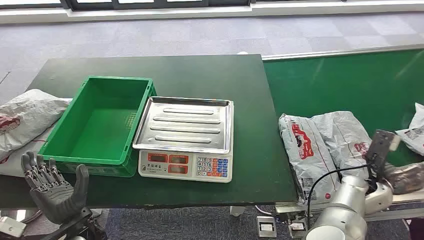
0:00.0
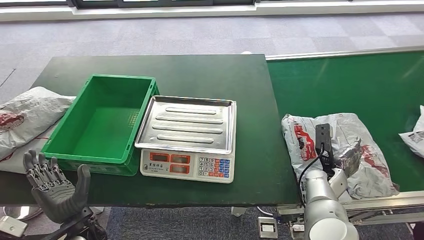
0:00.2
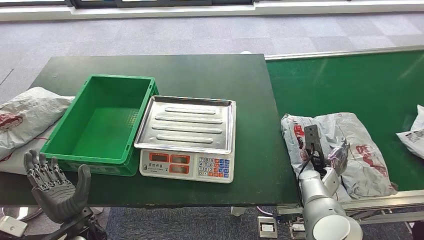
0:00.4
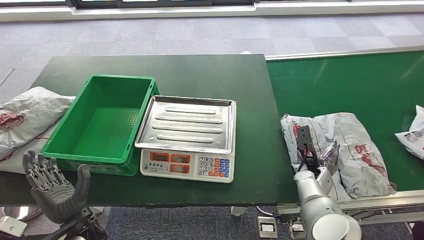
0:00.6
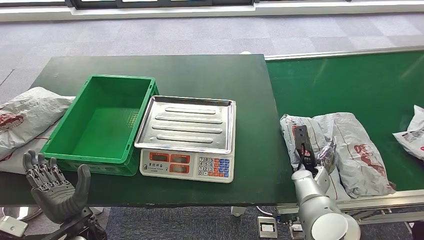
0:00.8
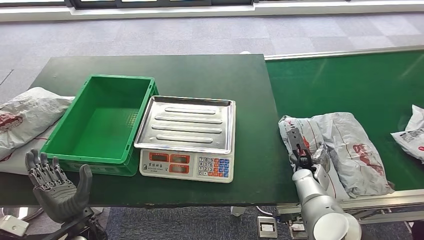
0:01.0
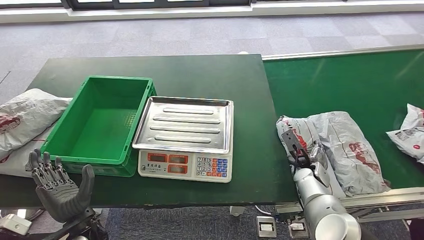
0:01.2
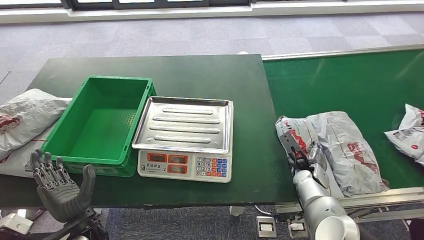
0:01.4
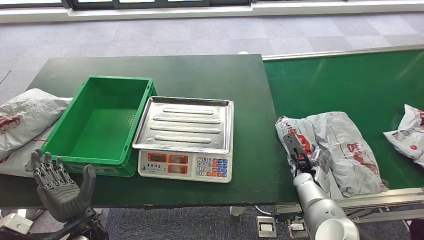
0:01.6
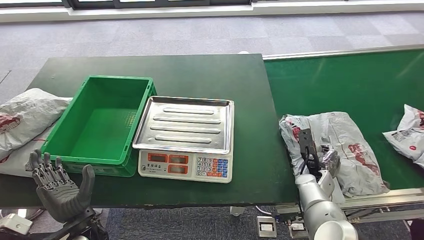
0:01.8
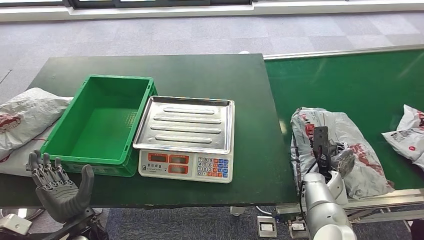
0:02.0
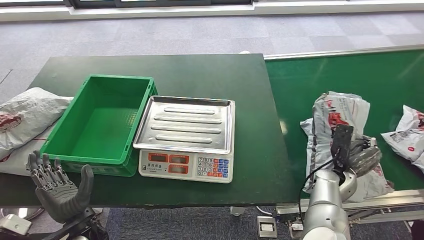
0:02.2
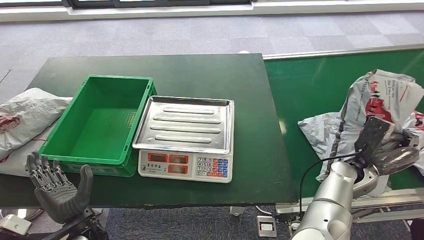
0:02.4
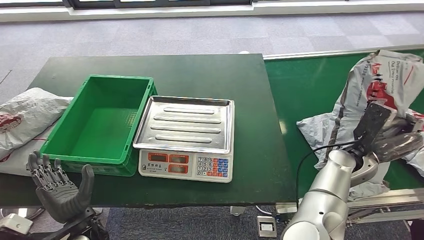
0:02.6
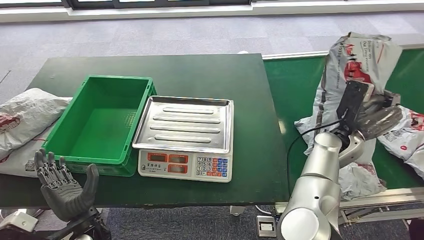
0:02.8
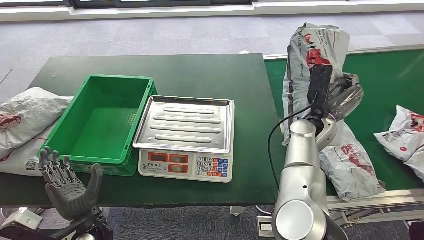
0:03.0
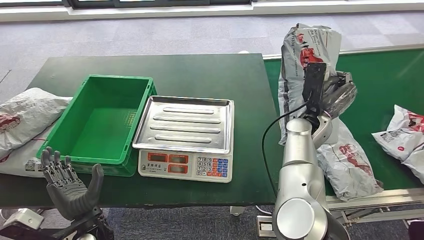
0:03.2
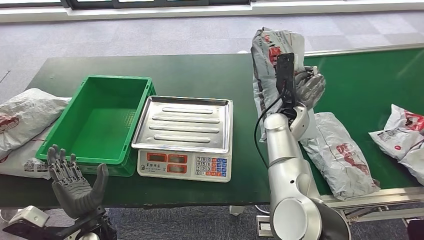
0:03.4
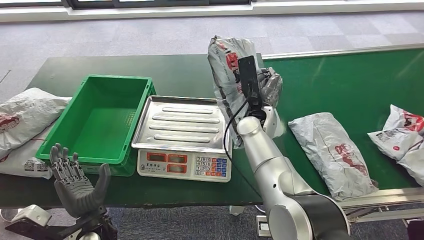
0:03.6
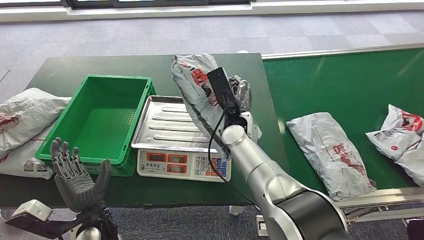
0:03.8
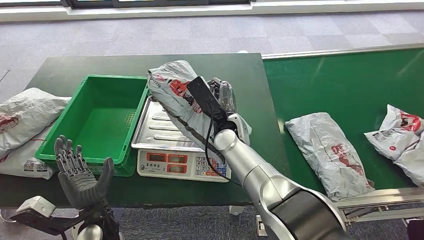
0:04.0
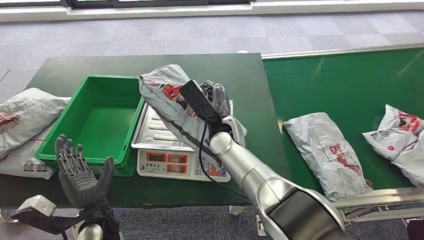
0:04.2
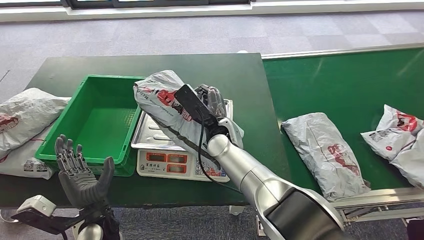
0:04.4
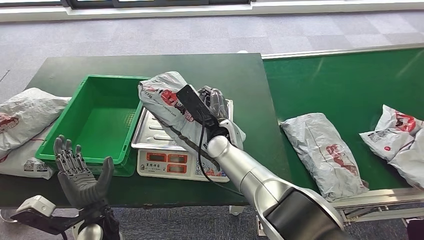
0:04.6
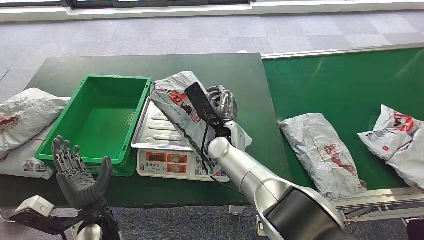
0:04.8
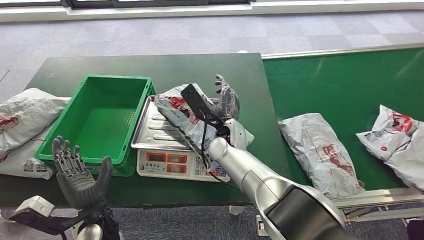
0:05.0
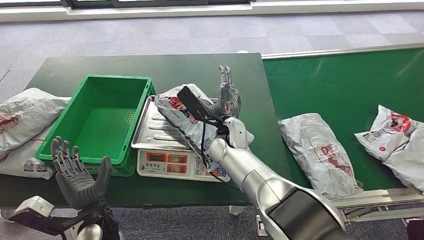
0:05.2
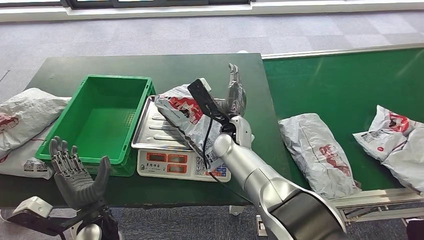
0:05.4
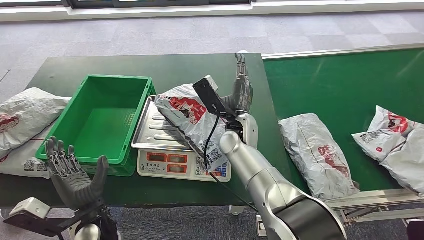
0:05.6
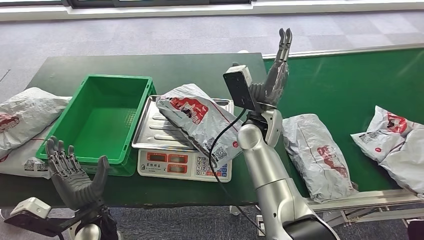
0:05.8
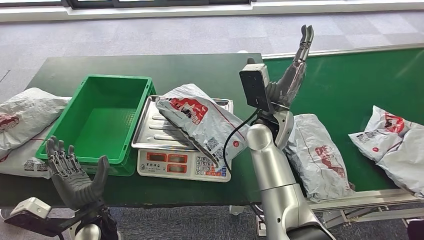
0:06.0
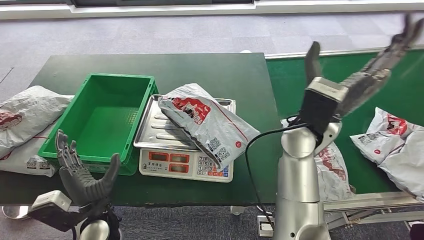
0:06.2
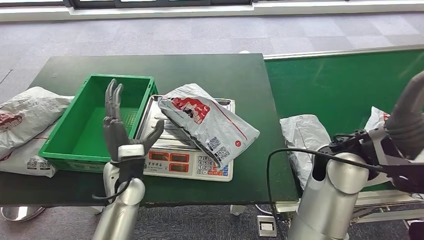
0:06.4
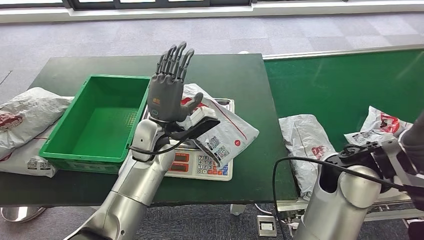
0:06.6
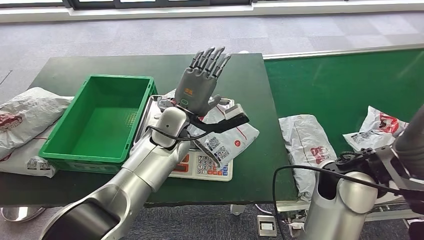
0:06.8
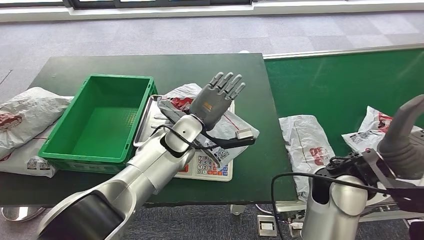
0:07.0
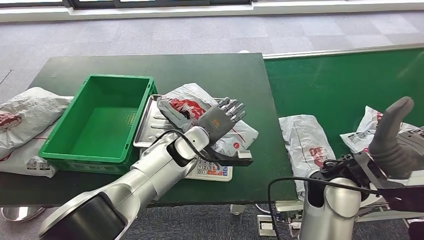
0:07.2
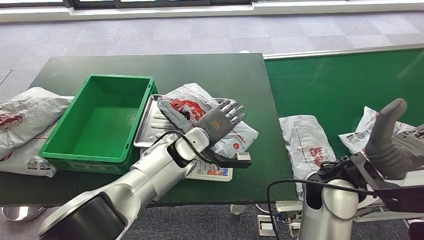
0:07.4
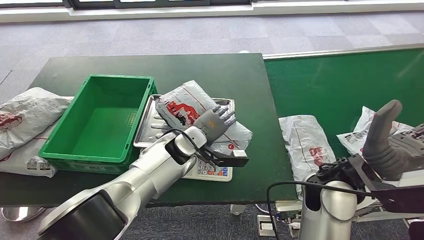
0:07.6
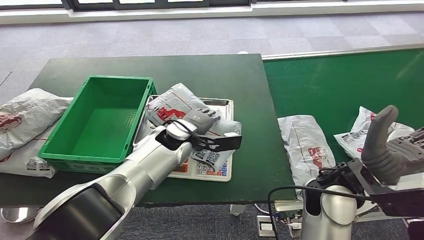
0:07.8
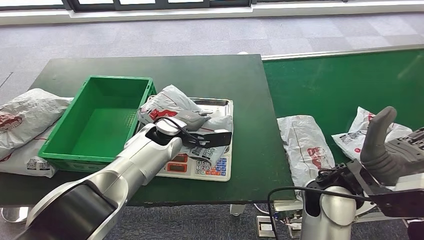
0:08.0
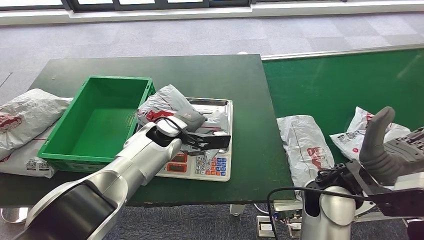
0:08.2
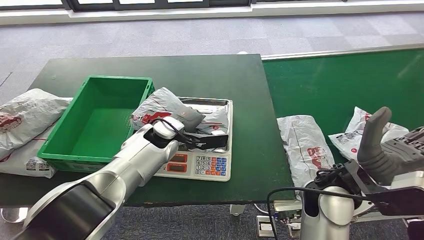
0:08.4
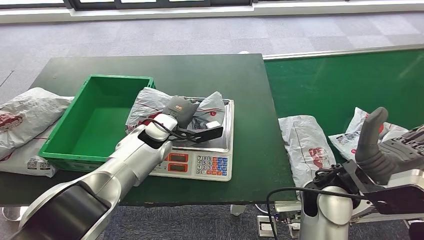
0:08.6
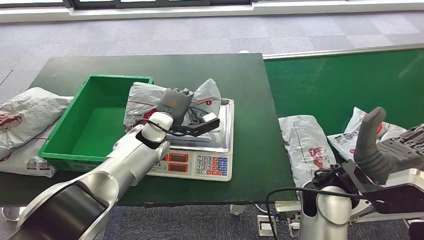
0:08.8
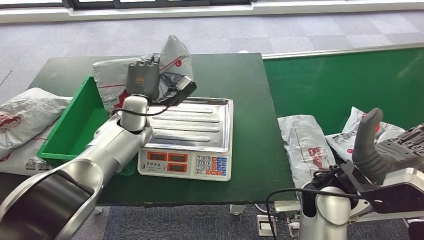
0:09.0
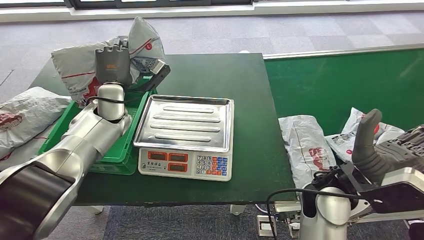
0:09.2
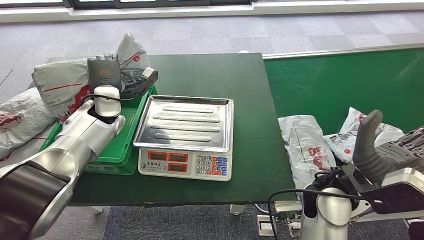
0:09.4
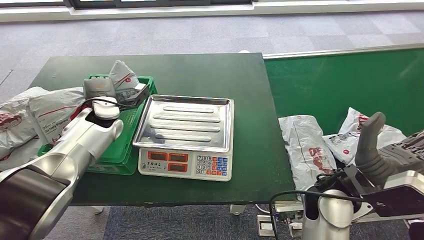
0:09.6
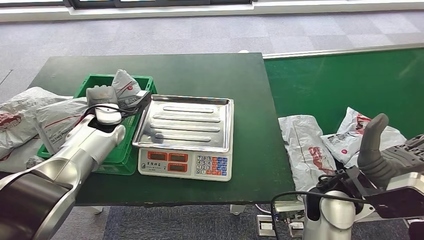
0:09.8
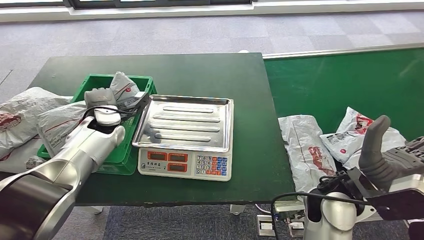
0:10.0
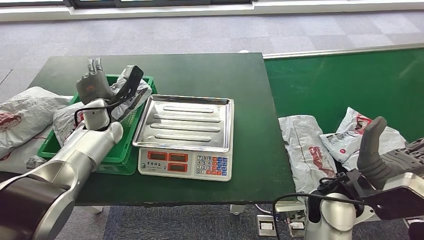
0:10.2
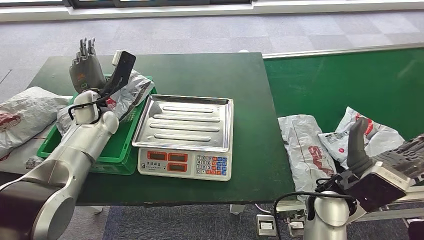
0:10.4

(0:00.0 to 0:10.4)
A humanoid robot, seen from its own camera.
Step, 0:00.0 - 0:02.4: Take the parcel off the conveyor belt.
Step, 0:02.6 - 0:05.4: Place the parcel onto the inbound machine.
Step, 0:07.6 - 0:09.0: Pick up the parcel from the inbound machine.
Step, 0:09.4 - 0:10.4: Put the parcel inside the courier box.

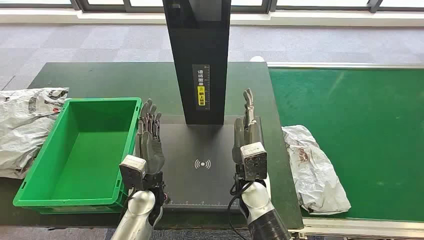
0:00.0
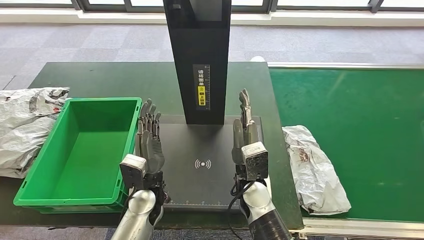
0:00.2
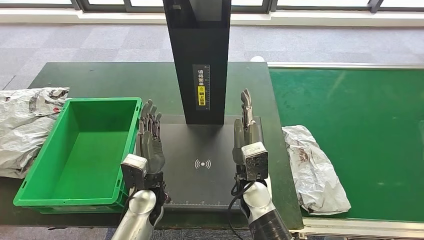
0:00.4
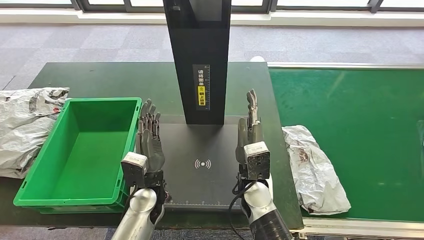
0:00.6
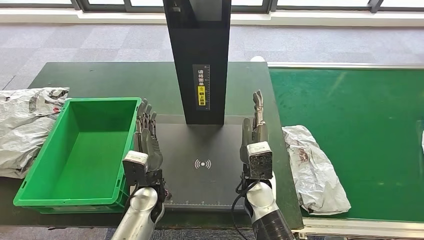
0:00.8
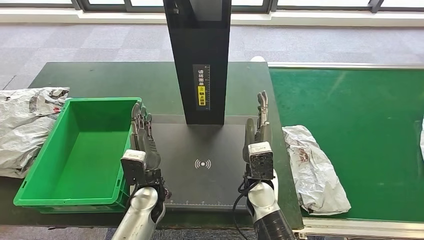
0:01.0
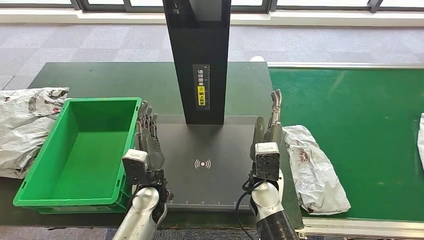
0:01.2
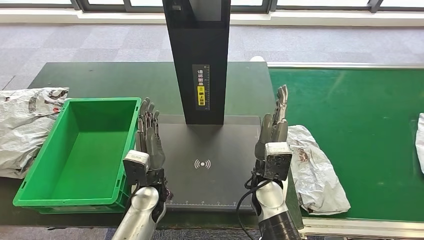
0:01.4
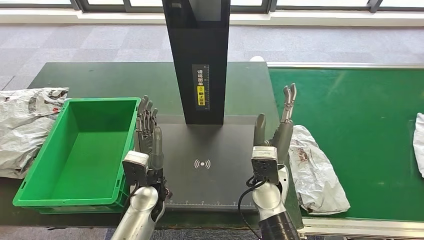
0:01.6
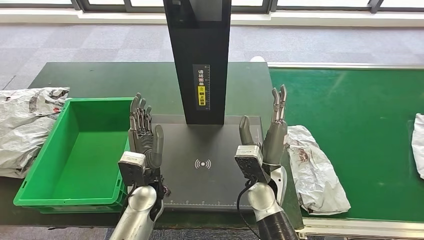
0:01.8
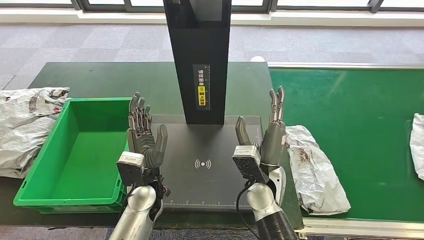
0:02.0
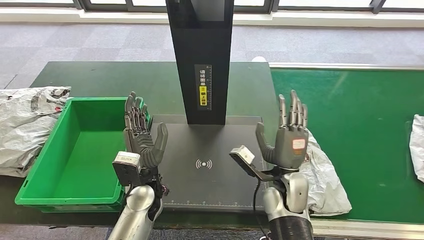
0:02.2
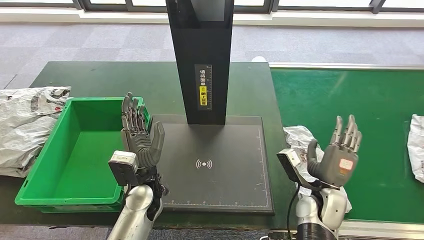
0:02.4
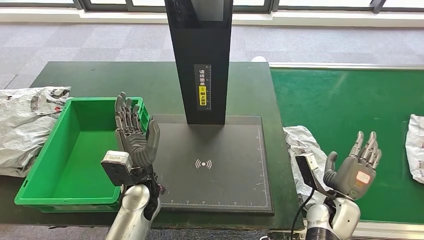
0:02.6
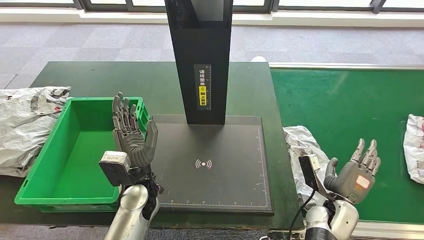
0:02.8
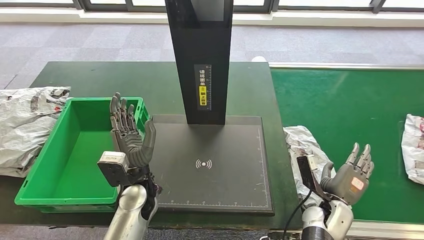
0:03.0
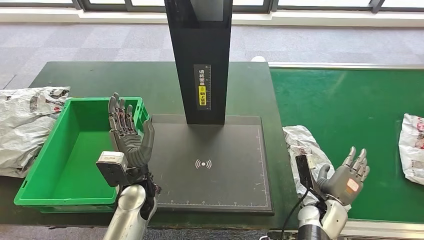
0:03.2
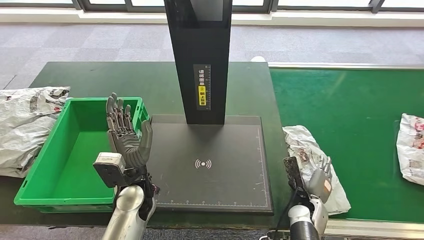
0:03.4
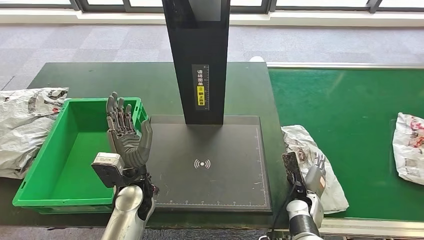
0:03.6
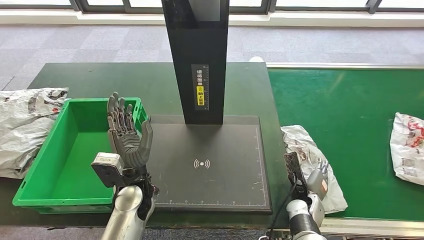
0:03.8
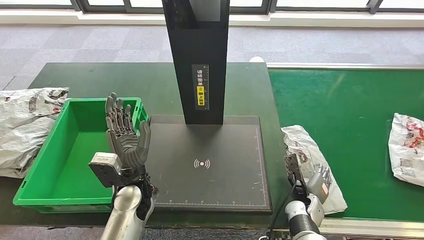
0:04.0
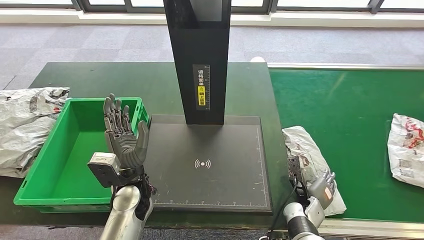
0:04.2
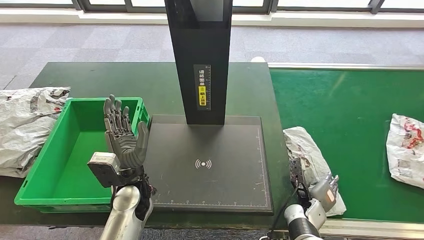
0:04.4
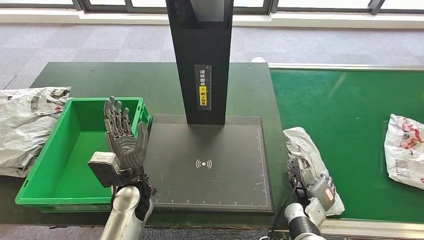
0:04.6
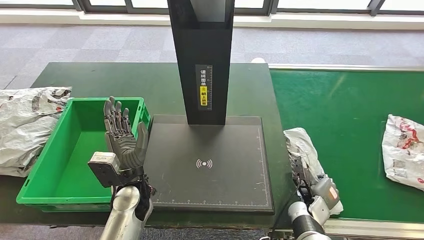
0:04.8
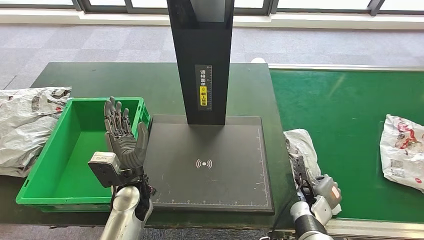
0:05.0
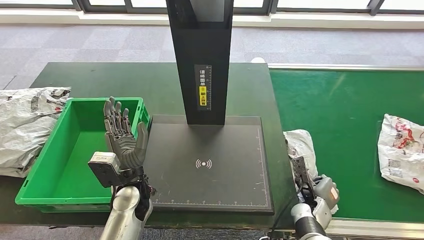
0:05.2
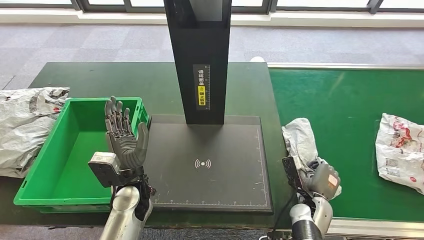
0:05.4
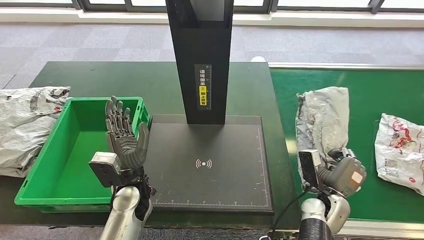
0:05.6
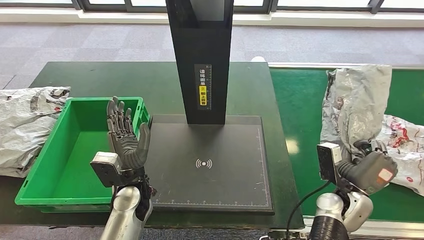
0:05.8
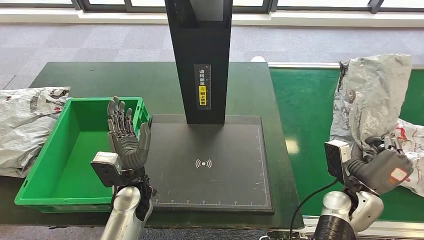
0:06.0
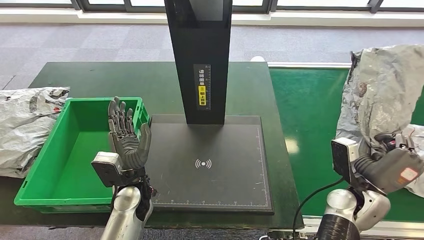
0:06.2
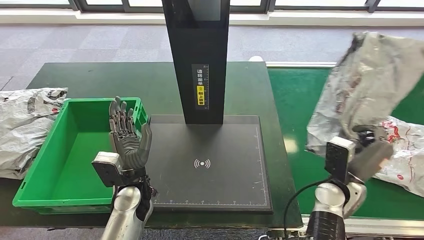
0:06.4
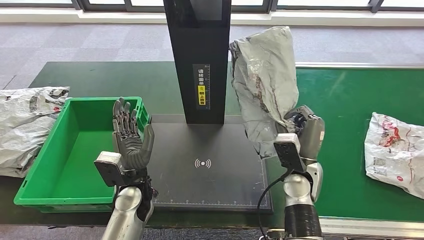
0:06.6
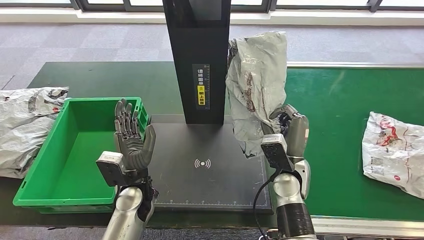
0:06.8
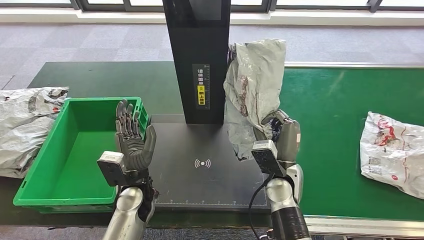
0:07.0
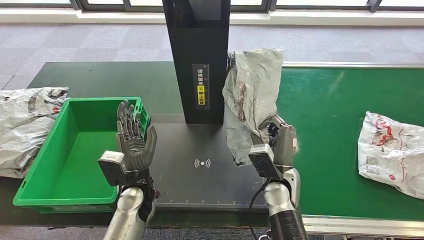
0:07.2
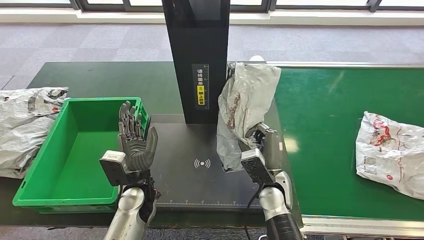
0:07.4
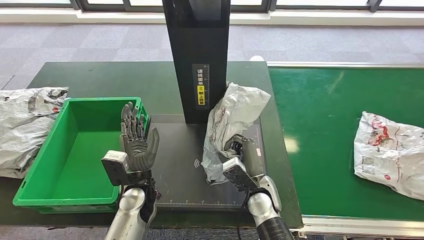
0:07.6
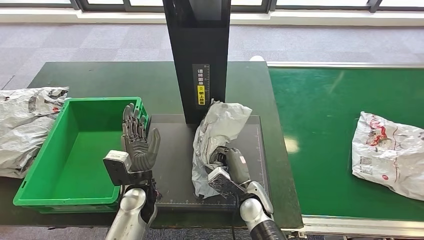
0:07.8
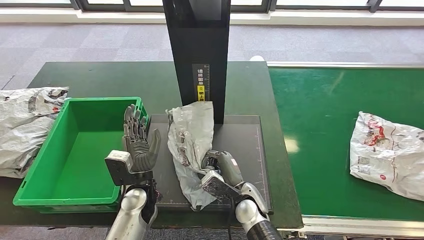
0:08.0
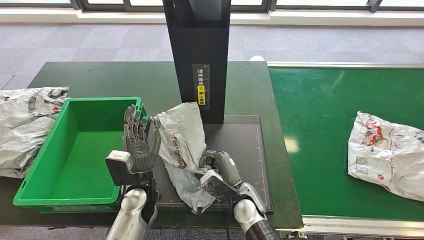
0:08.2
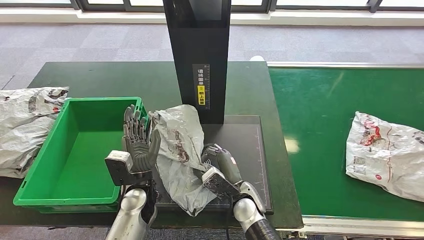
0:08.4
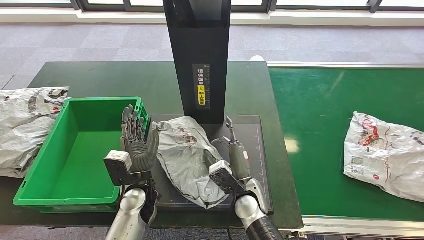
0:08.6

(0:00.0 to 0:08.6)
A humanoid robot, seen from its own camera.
Step, 0:00.0 - 0:06.0: Take the parcel off the conveyor belt.
0:02.8 - 0:04.4: The right hand shifts some 5 cm downward.
0:04.4 - 0:05.8: The right hand goes some 10 cm upward.
